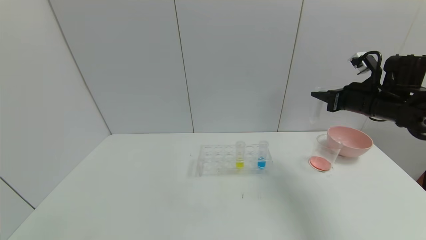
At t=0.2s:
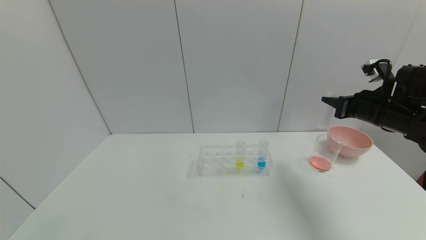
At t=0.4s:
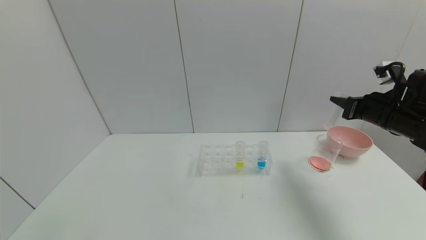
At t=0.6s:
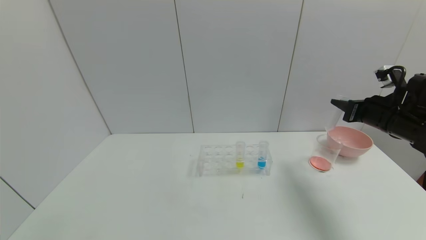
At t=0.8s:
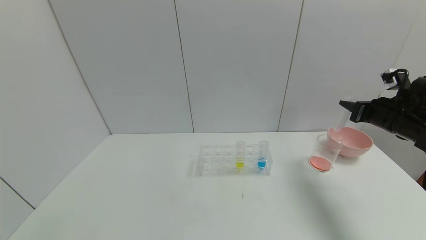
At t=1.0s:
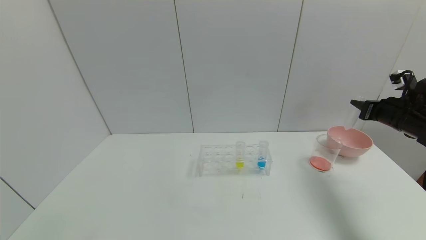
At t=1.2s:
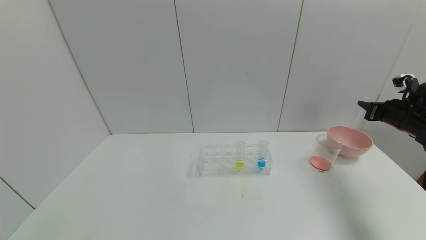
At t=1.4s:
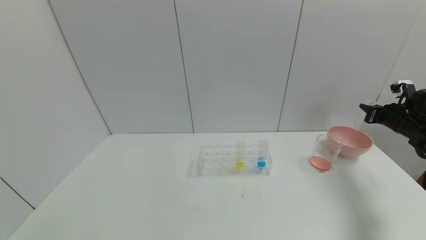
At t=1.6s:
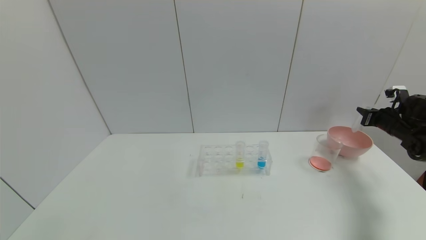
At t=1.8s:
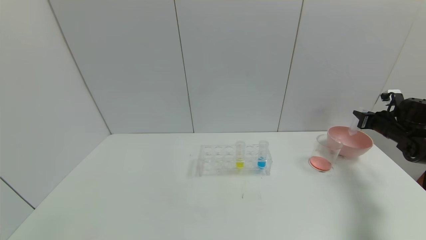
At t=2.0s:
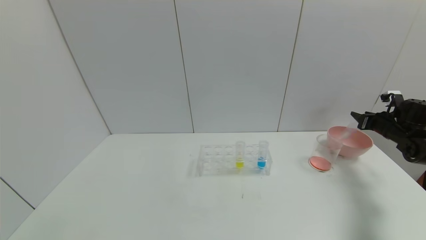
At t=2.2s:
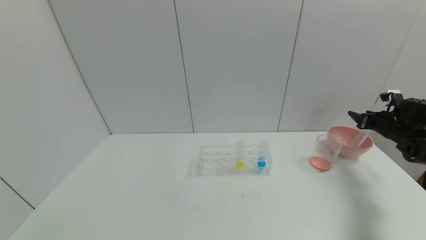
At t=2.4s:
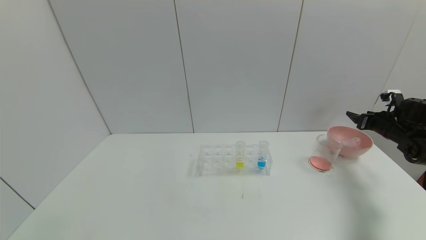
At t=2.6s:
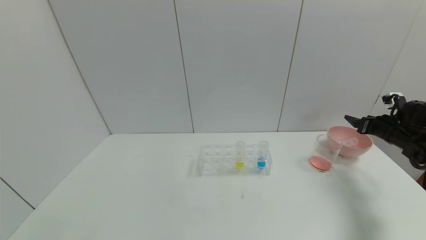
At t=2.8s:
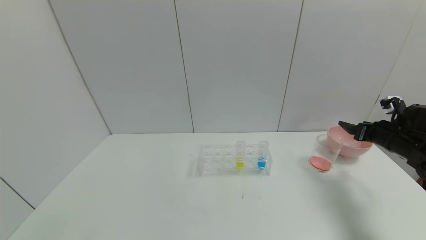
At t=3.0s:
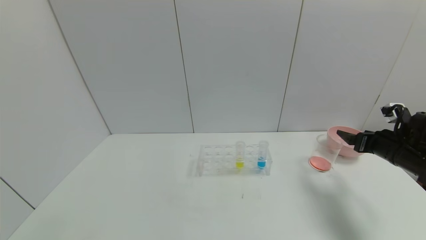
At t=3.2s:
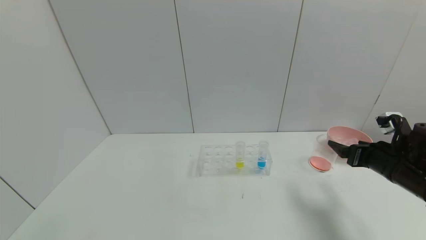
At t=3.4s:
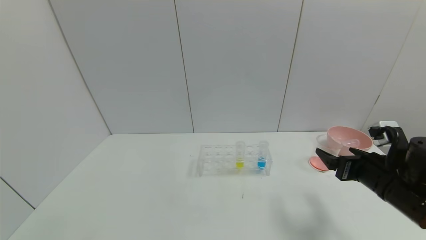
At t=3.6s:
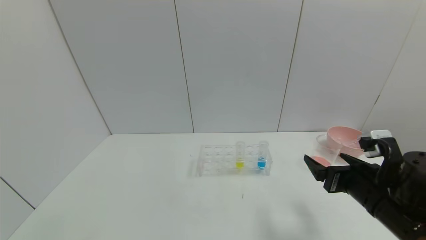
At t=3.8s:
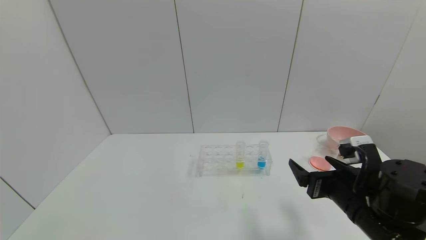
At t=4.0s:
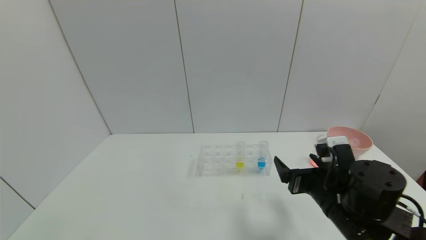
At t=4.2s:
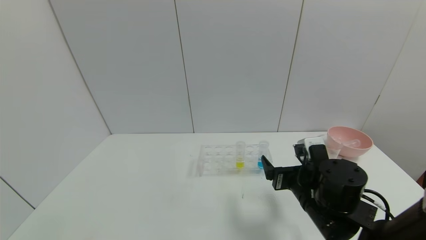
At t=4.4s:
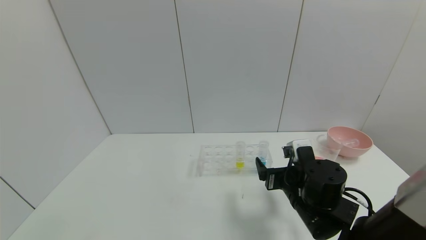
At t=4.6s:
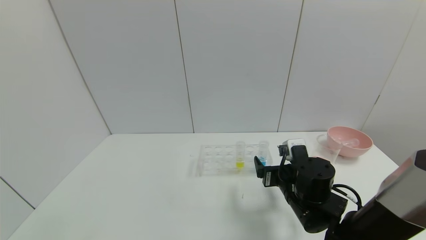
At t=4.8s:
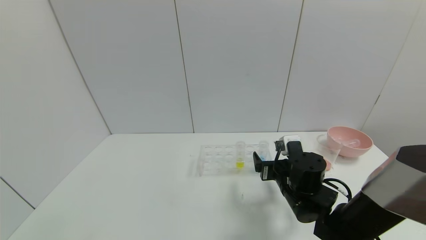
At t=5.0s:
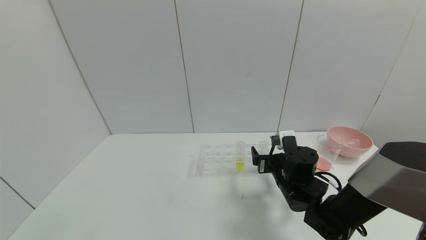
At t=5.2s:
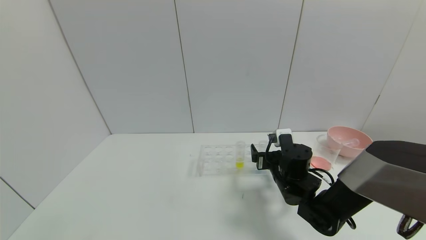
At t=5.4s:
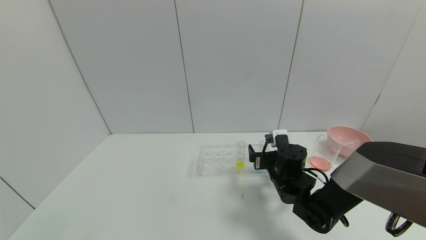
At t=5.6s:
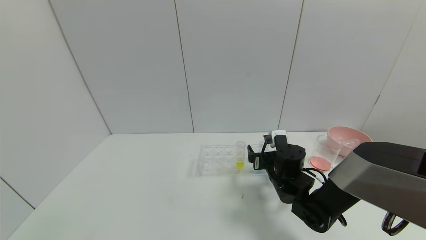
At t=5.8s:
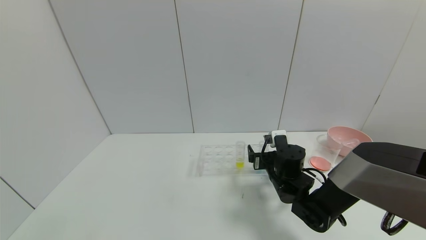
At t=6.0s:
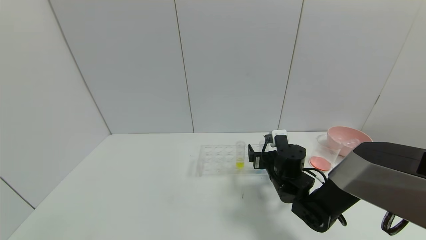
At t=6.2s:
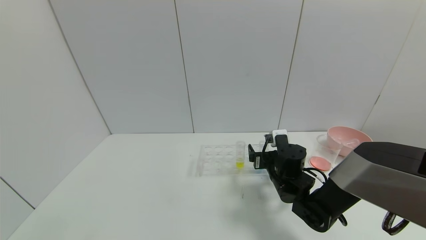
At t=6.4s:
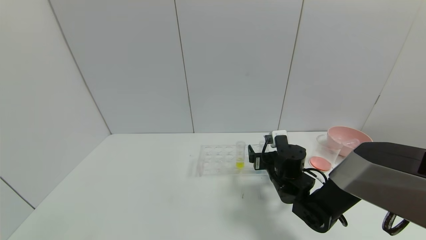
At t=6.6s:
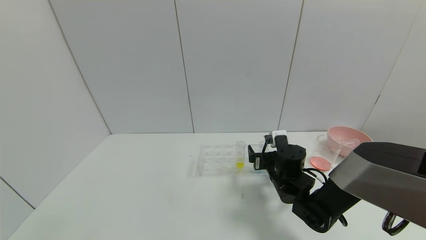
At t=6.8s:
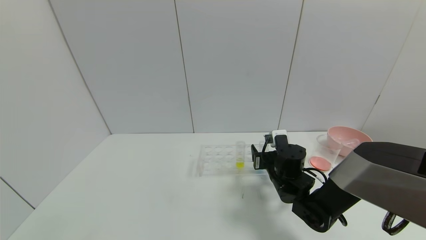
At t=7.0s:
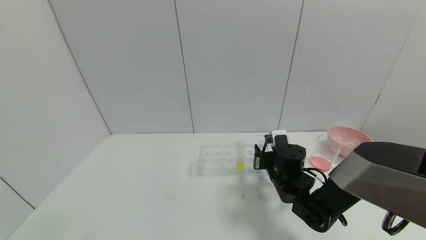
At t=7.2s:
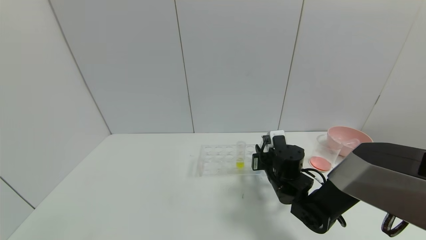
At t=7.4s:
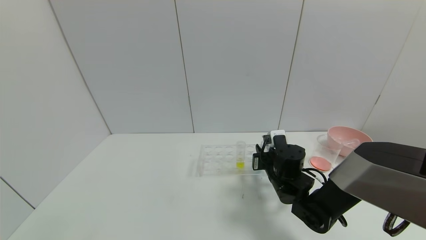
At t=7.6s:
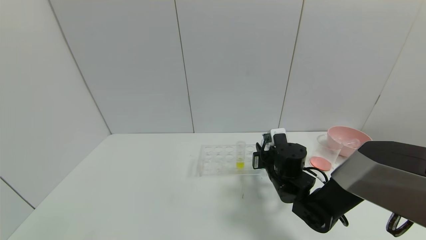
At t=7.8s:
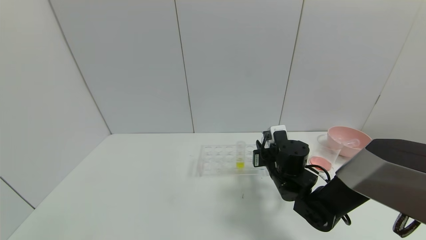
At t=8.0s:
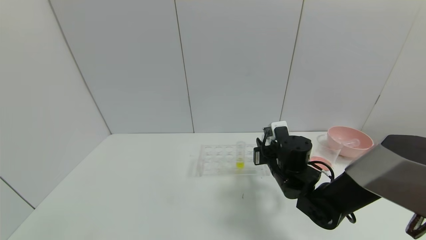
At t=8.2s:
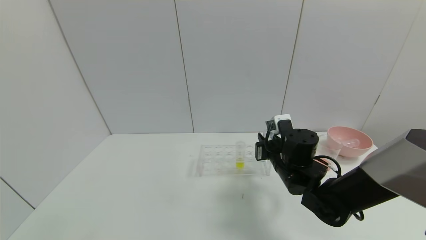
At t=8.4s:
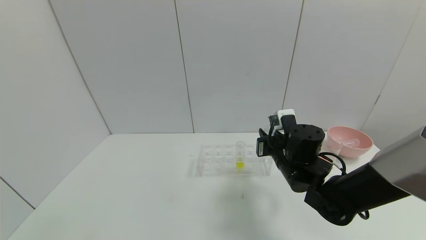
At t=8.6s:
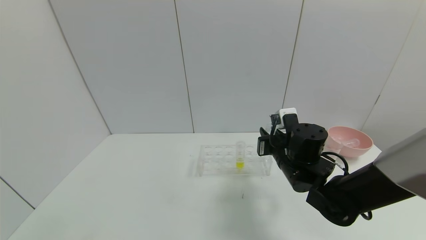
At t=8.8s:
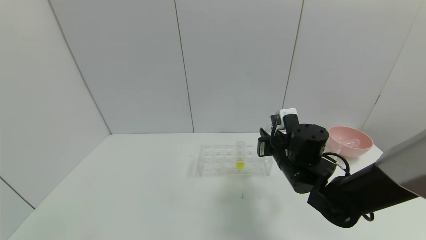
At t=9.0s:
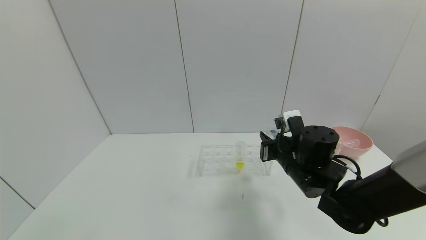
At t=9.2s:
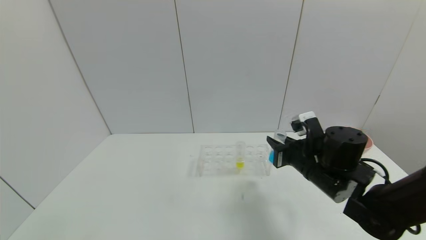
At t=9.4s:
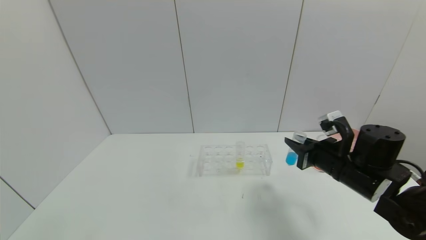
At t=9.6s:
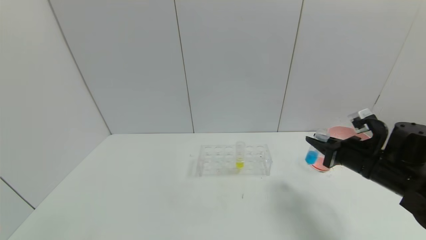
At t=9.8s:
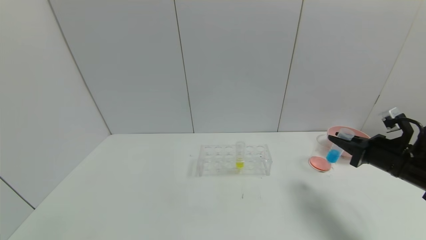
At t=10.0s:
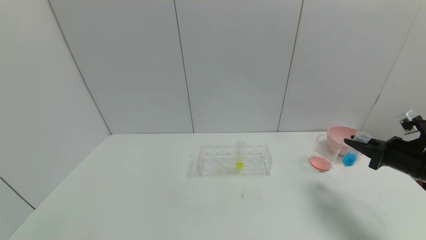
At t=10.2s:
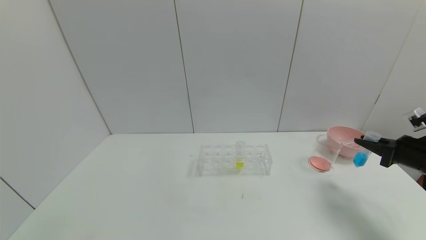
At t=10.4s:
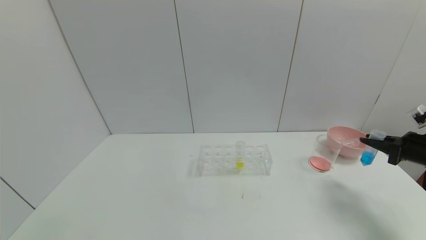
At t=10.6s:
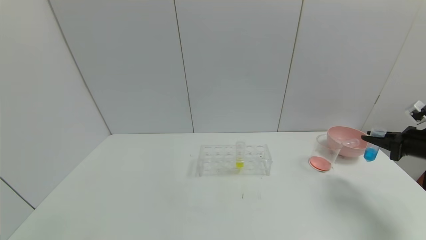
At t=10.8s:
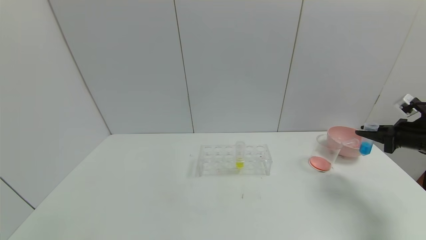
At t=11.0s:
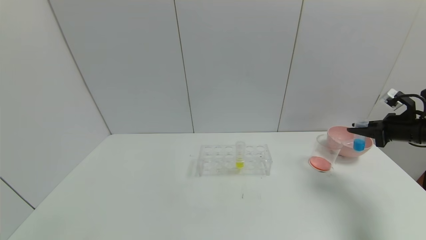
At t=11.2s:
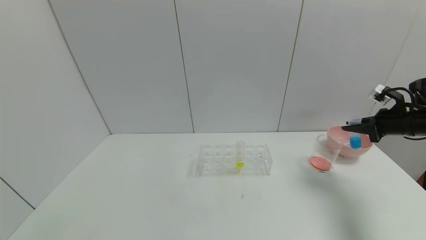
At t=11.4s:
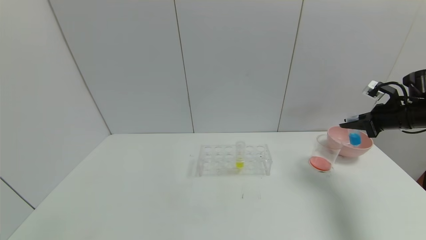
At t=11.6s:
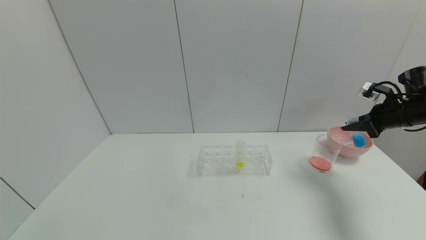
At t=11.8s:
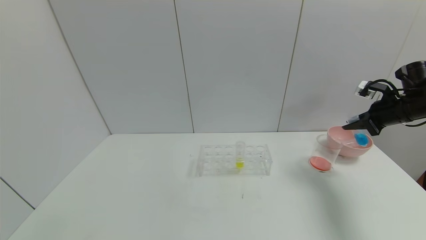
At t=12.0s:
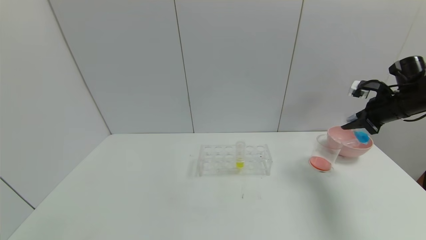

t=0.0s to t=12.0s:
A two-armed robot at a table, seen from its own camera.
Task of the whole recording: pick up the test tube with red pigment and the test tube with blue pigment by grippers and pour them into the container.
Step, t=0.0s to t=2.2s: Place the test tube into the bowl with the right gripper.
Step, t=2.4s to t=7.4s: Grasp the blue reagent with the right gripper.
t=0.0s to t=1.6s: The right gripper goes approximately 20 cm to the right and downward.
t=1.6s to t=3.0s: The right gripper is displaced backward and to the left by approximately 15 cm, and opens its fingers.
t=3.0s to t=4.4s: The right gripper goes approximately 25 cm to the left.
t=4.4s to t=6.0s: The right gripper moves forward, roughly 10 cm.
t=6.0s to t=7.6s: The right gripper closes.
t=7.6s to t=9.0s: The right gripper is displaced upward by about 5 cm.
t=9.0s to t=10.4s: The right gripper moves to the right, about 30 cm.
t=10.4s to t=12.0s: The right gripper heads forward and upward, covering about 15 cm.

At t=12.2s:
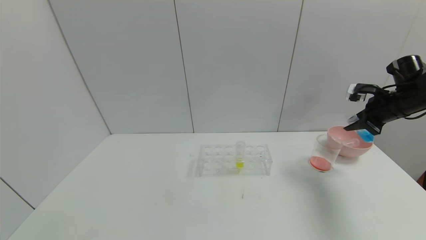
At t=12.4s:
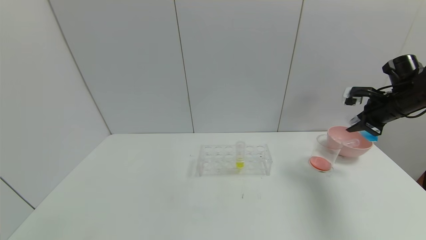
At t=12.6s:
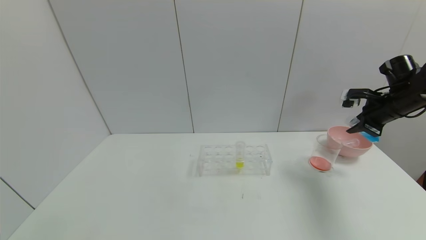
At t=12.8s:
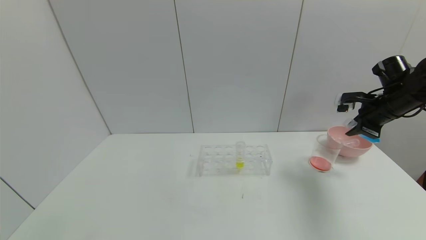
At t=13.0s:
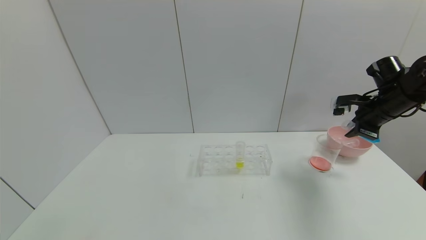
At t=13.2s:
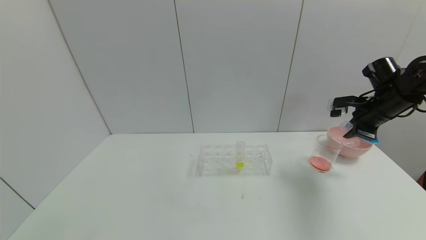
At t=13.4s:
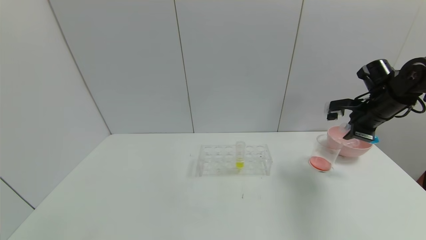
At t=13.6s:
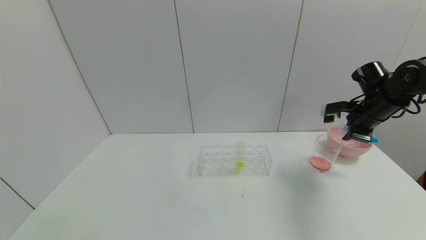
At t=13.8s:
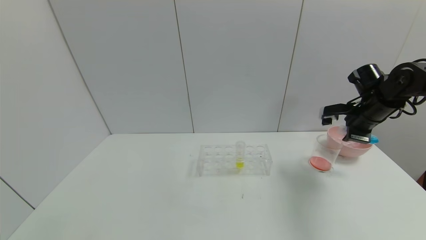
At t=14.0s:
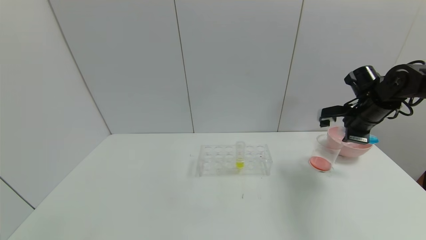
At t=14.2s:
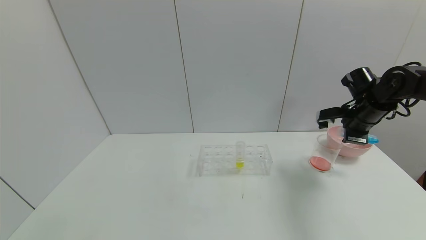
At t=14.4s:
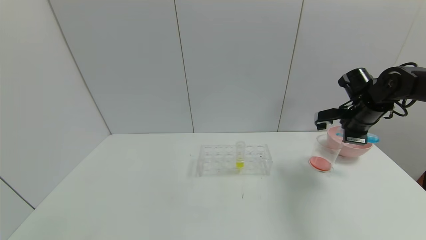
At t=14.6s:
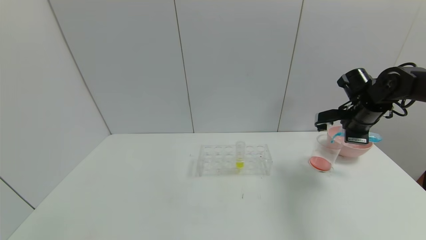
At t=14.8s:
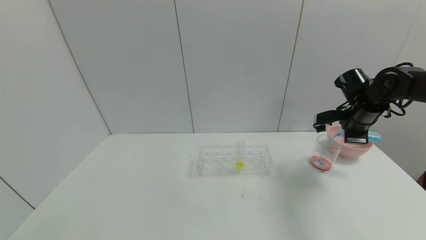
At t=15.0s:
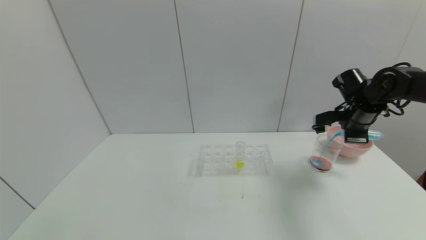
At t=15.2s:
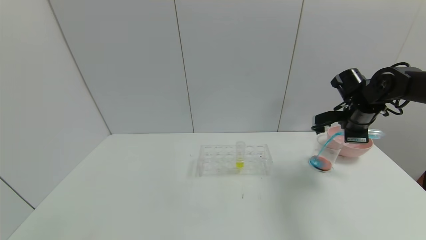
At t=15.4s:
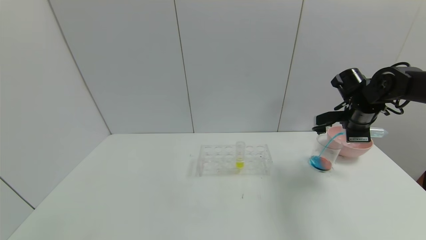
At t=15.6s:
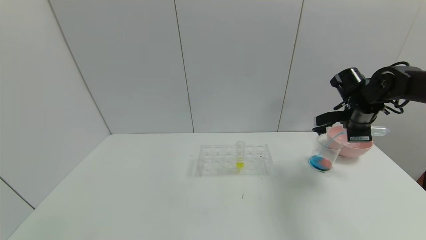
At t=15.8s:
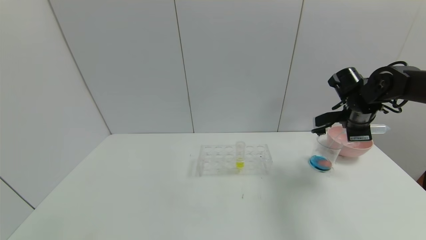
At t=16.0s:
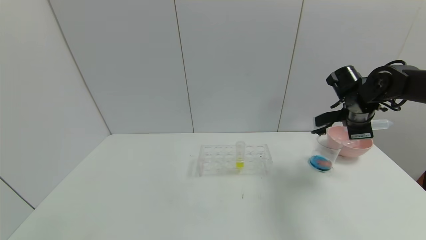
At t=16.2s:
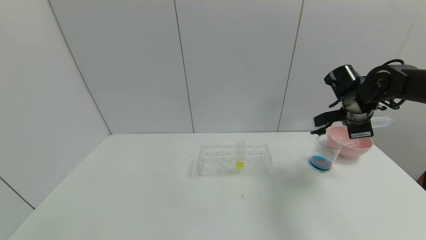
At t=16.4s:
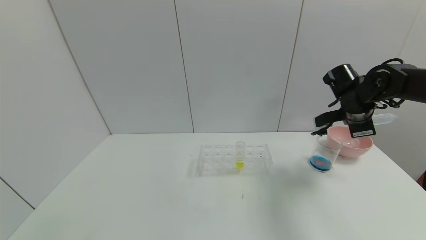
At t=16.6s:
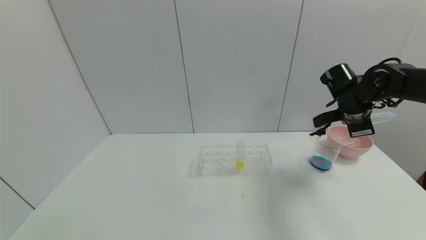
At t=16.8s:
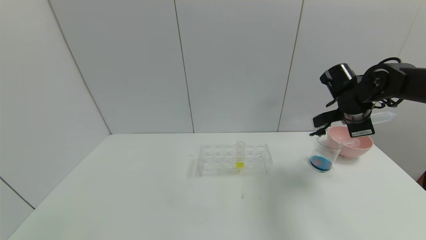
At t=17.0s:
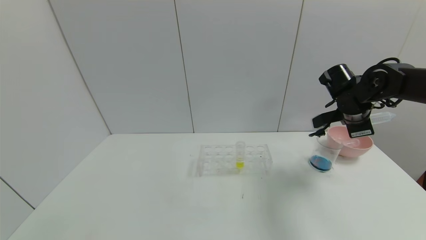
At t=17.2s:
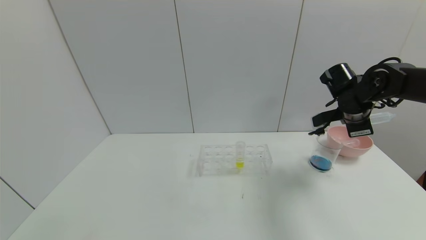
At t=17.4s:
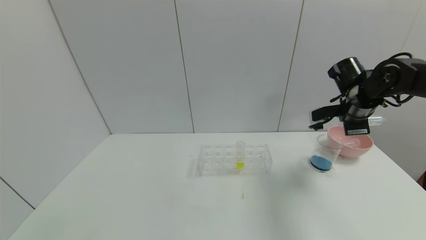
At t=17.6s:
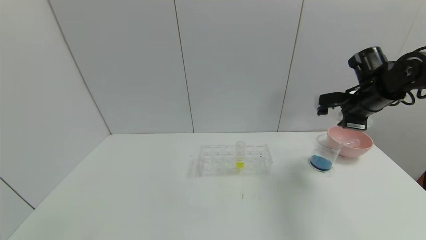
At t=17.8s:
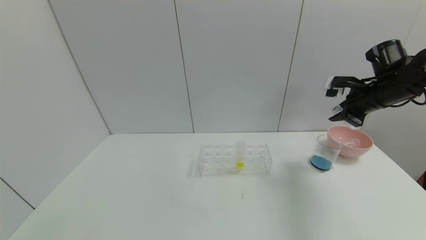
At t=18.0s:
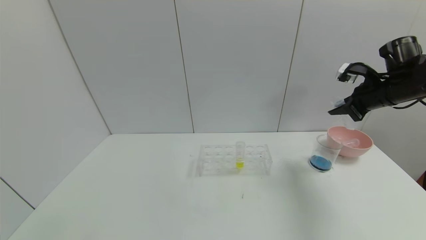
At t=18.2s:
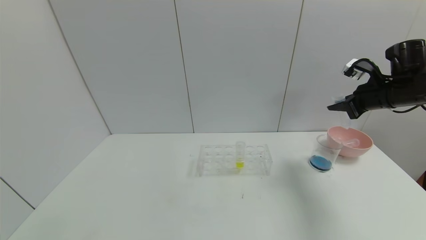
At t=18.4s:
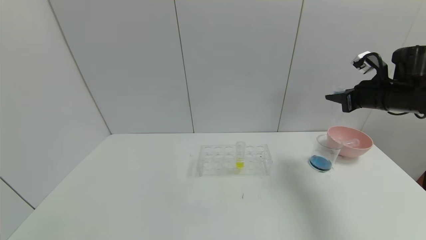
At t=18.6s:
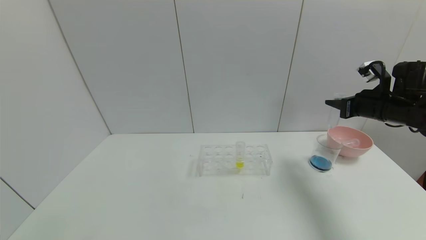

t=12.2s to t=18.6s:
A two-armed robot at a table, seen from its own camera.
Task of the whole recording: pick up the test tube with red pigment and the test tube with blue pigment by grippers and pour them into the container.
Step, t=12.2s to t=16.0s: Pour the blue reagent into the graduated cylinder with the right gripper.
t=12.2s to t=13.8s: The right gripper heads to the left, covering roughly 5 cm.
t=13.8s to t=15.4s: The grippers stay close to where they were, moving slightly.
t=15.4s to t=17.0s: The grippers stay close to where they were, moving slightly.
t=17.0s to t=18.6s: The right gripper moves to the right, approximately 5 cm.
